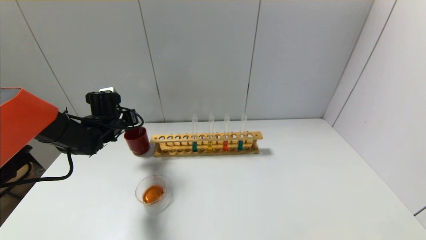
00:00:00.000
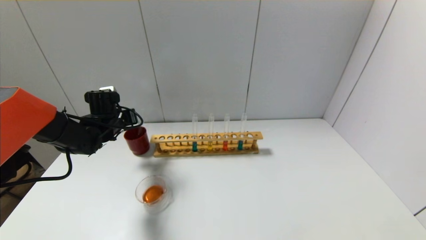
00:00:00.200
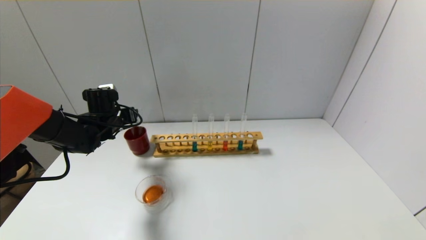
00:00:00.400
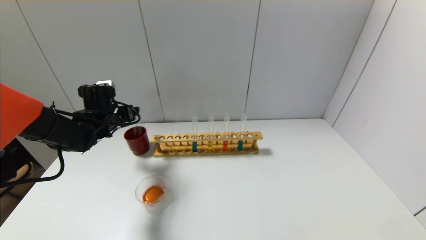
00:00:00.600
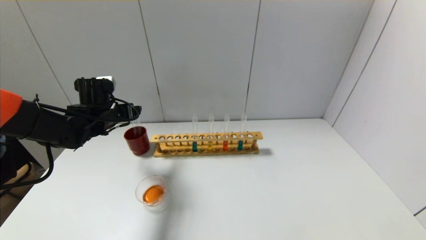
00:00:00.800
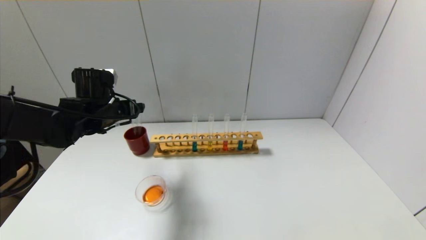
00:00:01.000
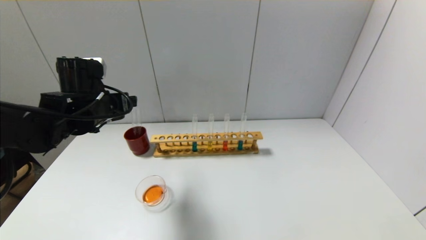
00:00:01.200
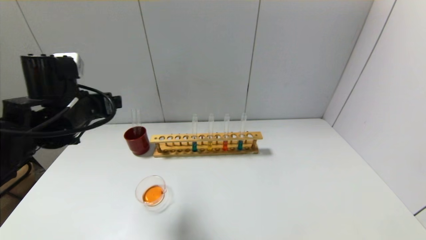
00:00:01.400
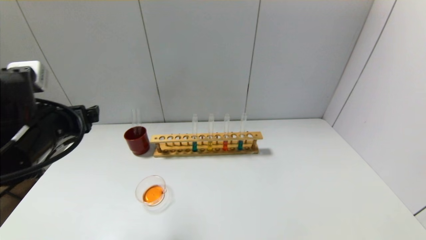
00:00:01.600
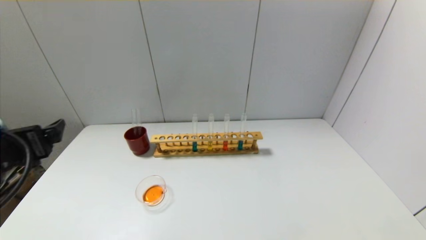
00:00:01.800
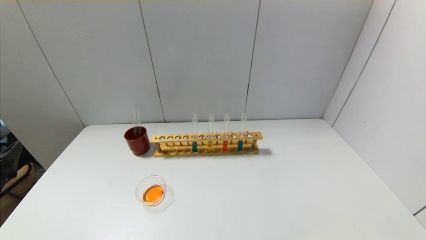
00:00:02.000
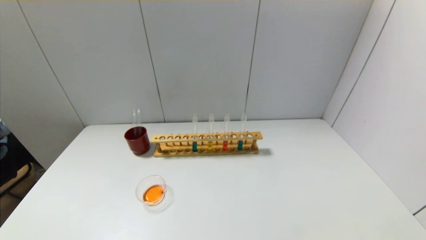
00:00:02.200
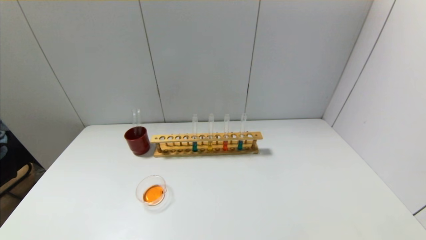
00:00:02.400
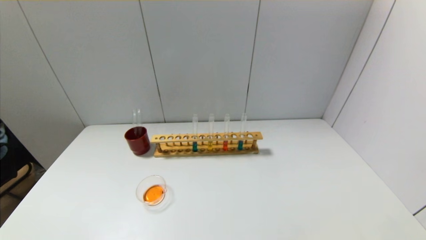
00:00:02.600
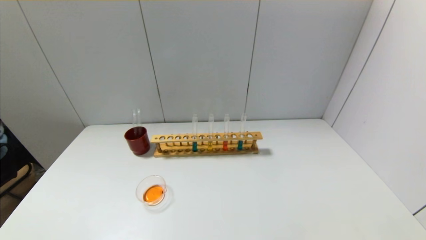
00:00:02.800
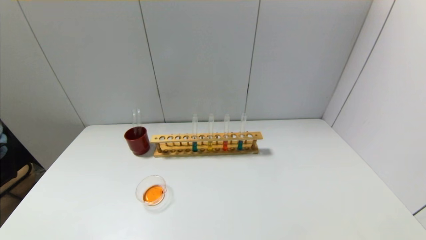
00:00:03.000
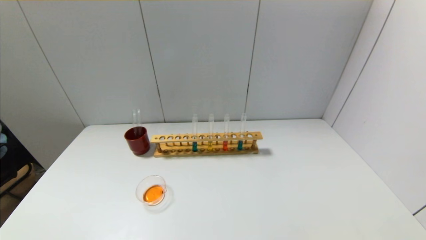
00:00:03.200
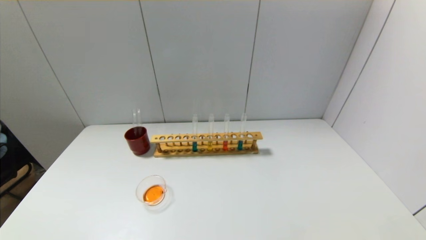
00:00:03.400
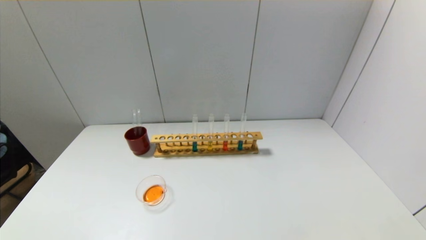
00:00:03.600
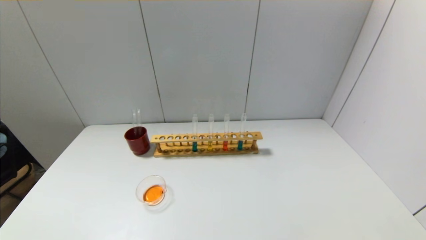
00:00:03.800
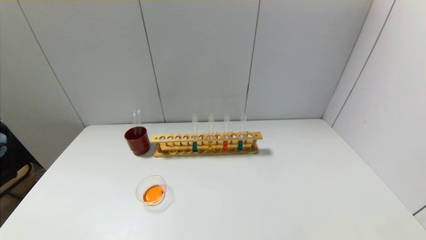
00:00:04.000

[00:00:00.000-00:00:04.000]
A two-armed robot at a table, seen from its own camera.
00:00:00.000 to 00:00:01.400: The left gripper travels backward and upward by roughly 20 cm, and opens up.
00:00:01.400 to 00:00:02.600: The left gripper travels backward by approximately 25 cm.
